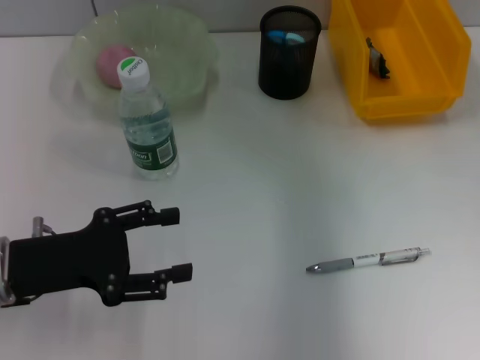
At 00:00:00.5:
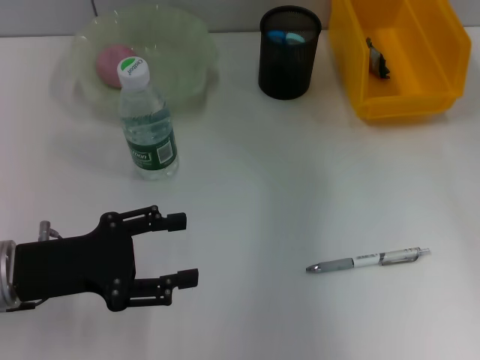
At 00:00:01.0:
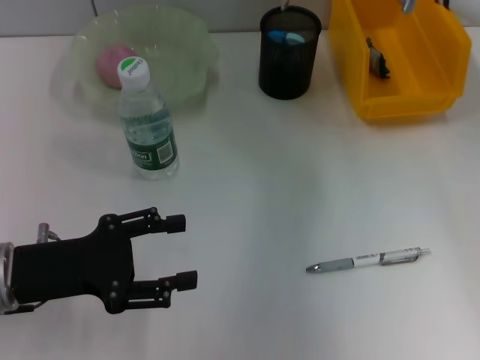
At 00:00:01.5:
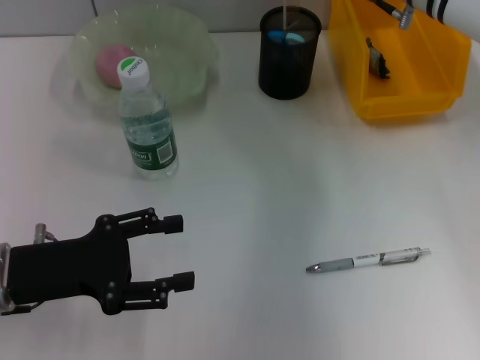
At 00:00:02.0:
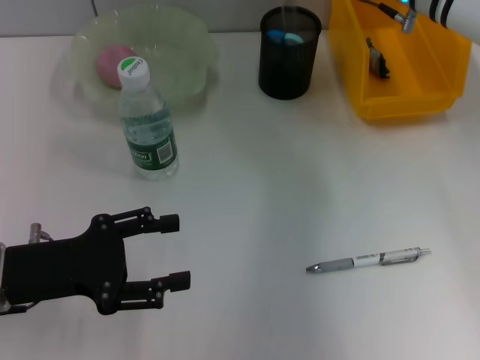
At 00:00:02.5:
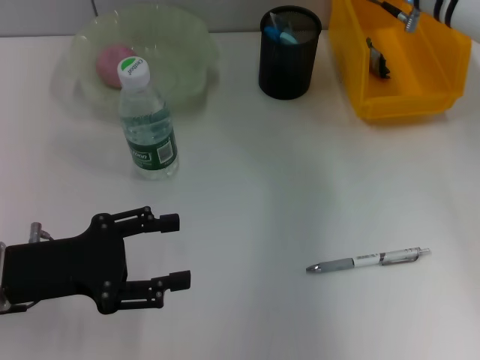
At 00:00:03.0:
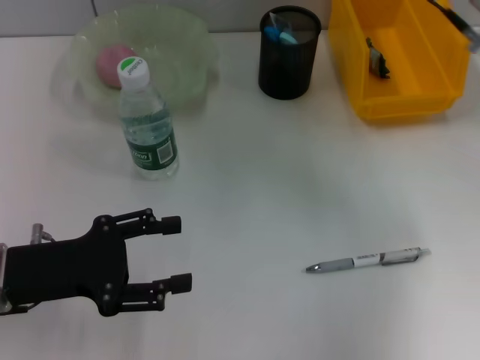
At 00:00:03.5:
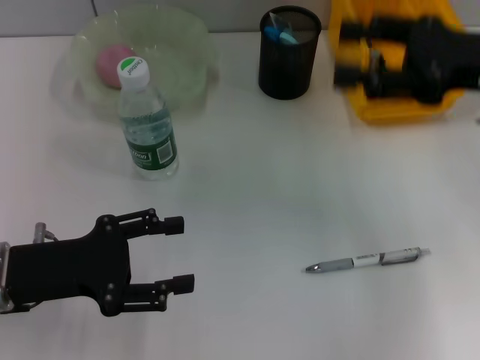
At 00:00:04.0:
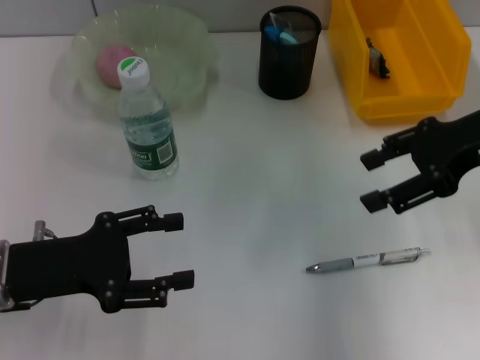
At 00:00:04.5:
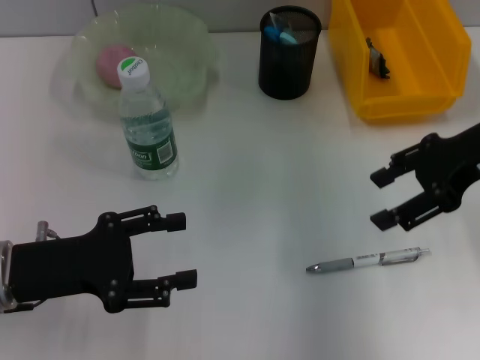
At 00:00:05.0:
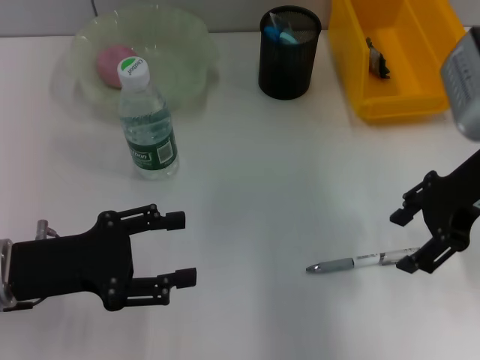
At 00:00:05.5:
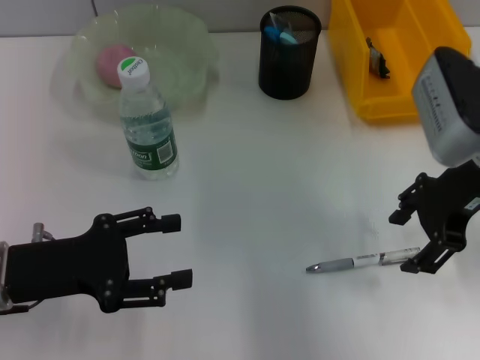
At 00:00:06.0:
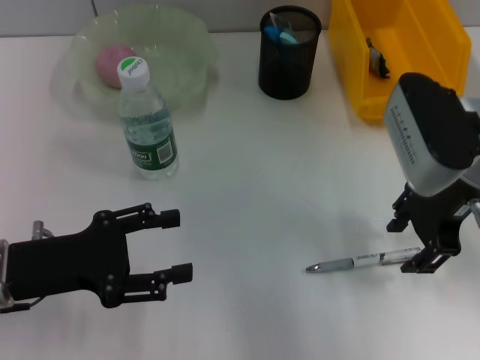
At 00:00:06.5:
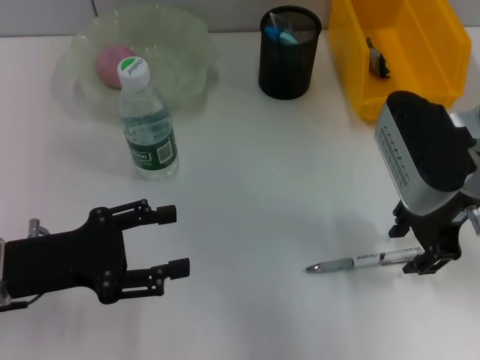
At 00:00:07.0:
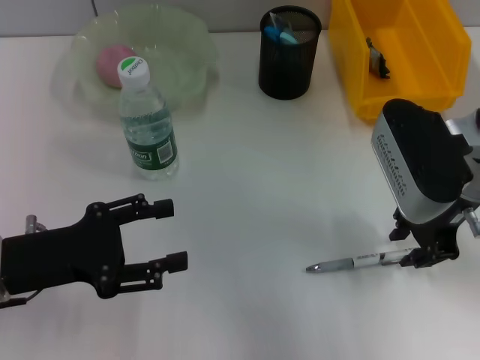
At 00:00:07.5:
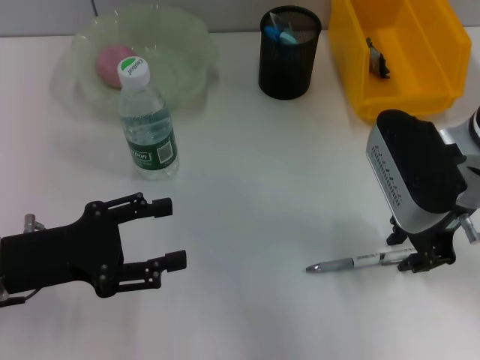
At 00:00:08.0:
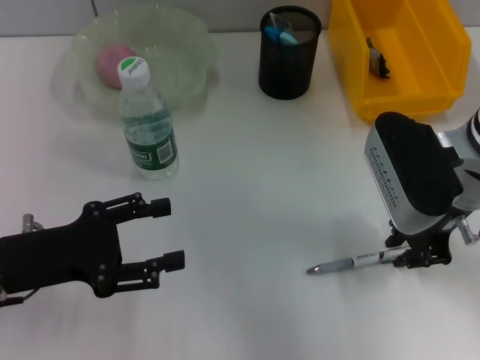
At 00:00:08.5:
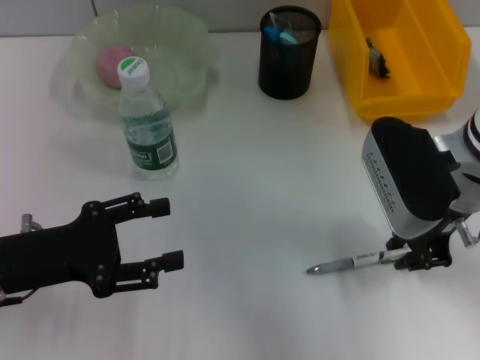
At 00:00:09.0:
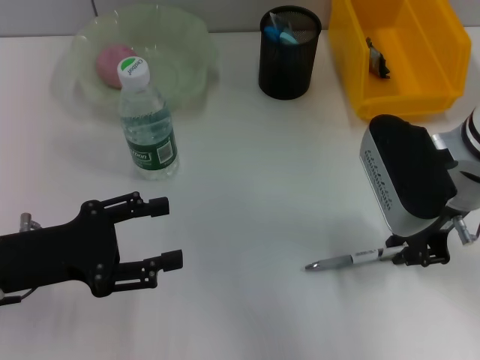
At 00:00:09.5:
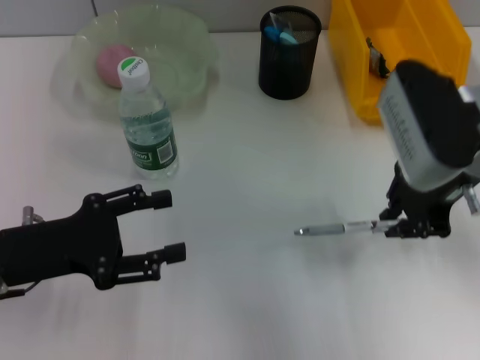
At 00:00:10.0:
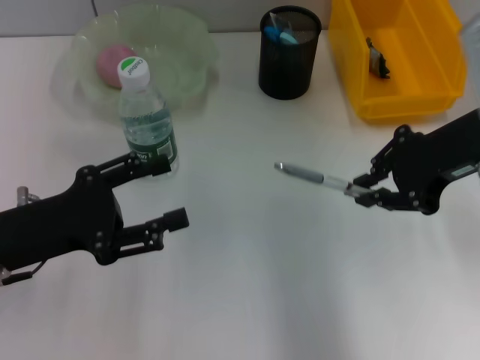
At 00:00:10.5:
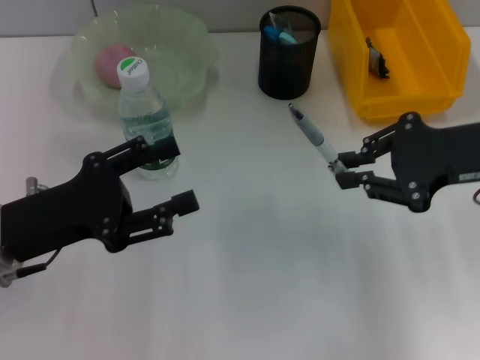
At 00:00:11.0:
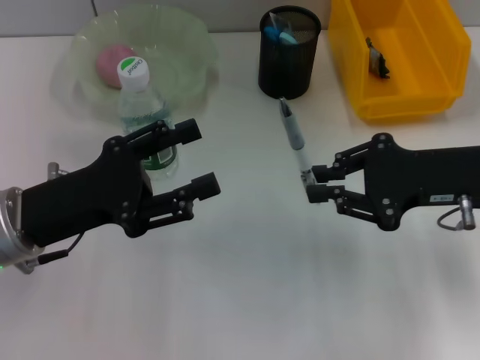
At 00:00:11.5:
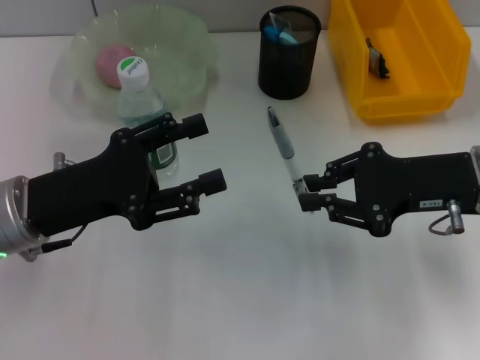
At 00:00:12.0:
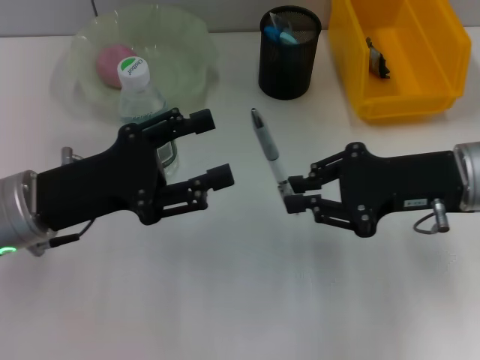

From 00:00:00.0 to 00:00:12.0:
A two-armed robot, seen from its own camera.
Step, from 00:00:00.0 to 00:00:02.0: Place the ruler into the pen holder with the right hand.
Step, from 00:00:02.5 to 00:00:08.5: Grab the gray spring-action pen with the right hand.
From 00:00:00.0 to 00:00:02.0: The right gripper moves downward, roughly 5 cm.
From 00:00:02.0 to 00:00:04.0: The right gripper goes about 15 cm backward and to the right.
From 00:00:04.0 to 00:00:06.0: The right gripper heads to the left, covering some 5 cm.
From 00:00:06.0 to 00:00:08.0: The right gripper closes.
From 00:00:08.0 to 00:00:10.0: The right gripper travels upward by roughly 5 cm.
From 00:00:10.0 to 00:00:12.0: The right gripper heads downward, covering roughly 5 cm.

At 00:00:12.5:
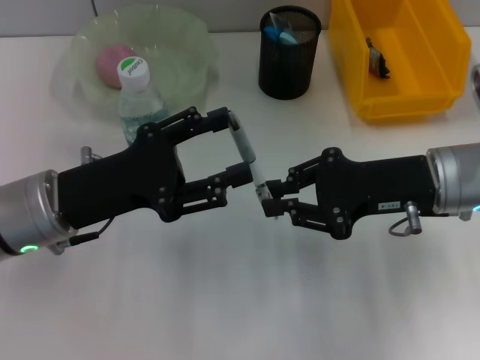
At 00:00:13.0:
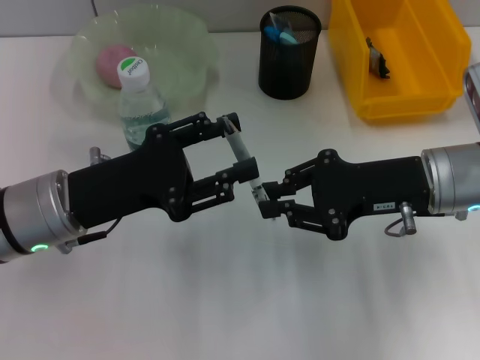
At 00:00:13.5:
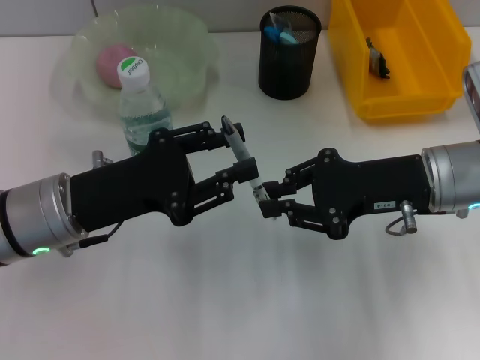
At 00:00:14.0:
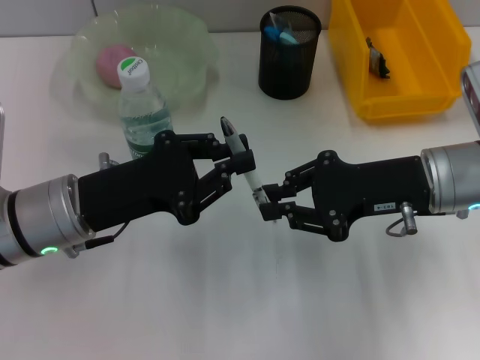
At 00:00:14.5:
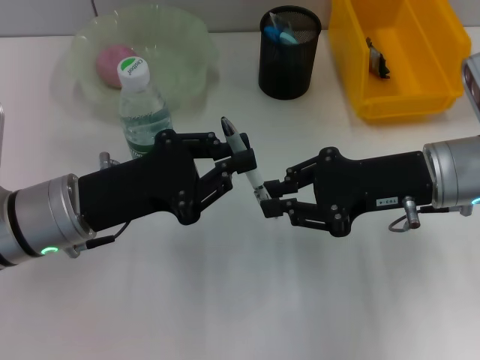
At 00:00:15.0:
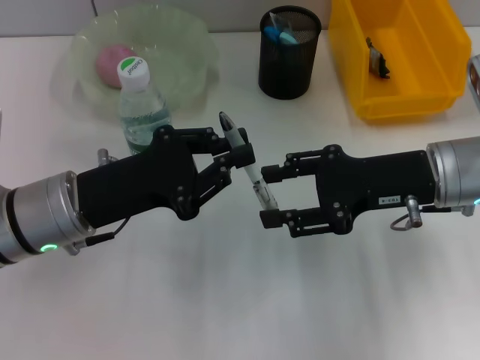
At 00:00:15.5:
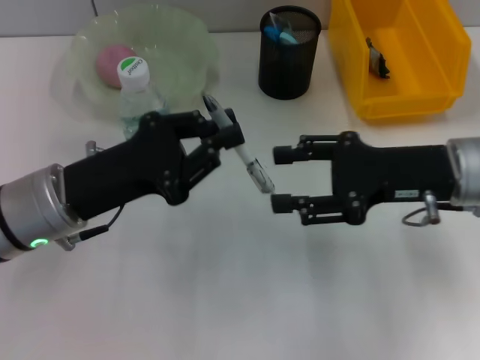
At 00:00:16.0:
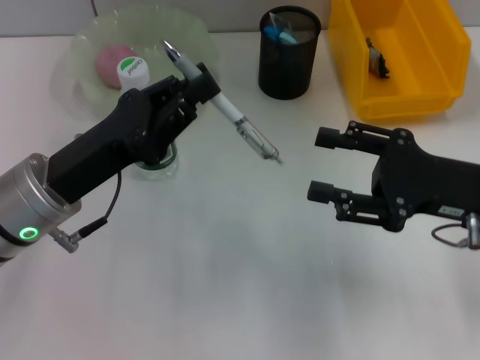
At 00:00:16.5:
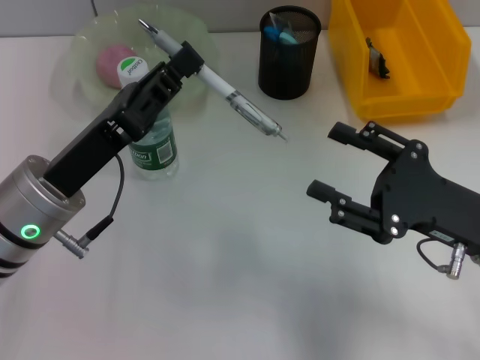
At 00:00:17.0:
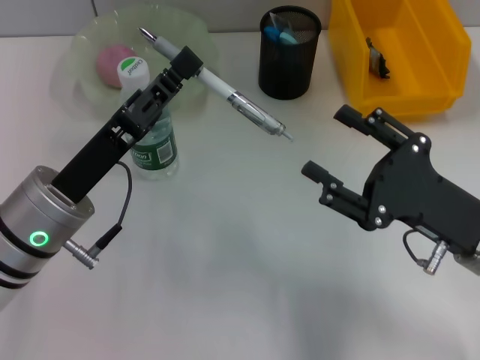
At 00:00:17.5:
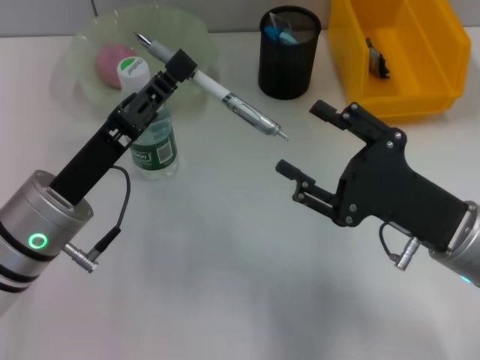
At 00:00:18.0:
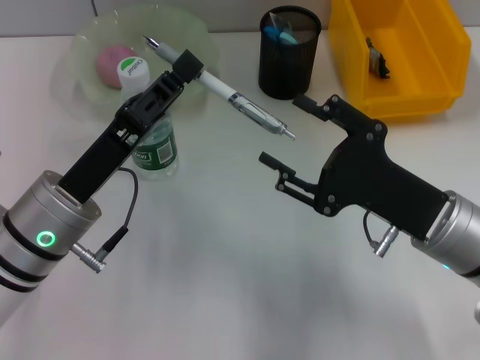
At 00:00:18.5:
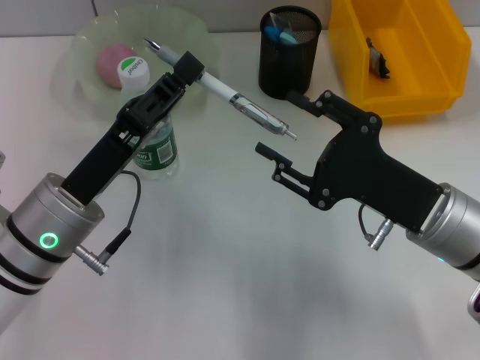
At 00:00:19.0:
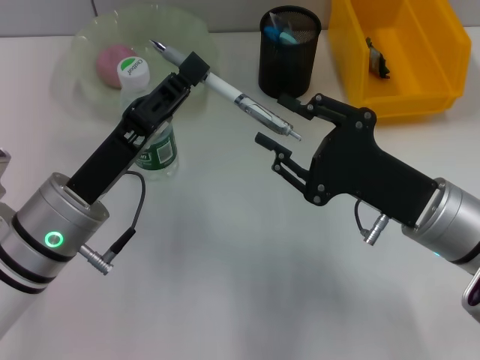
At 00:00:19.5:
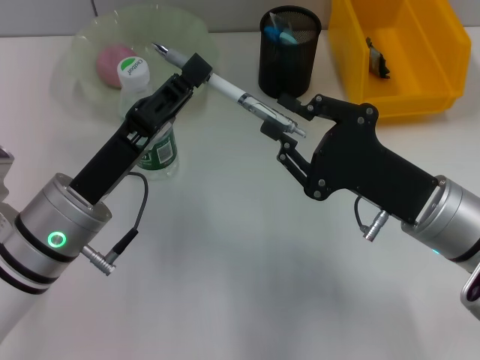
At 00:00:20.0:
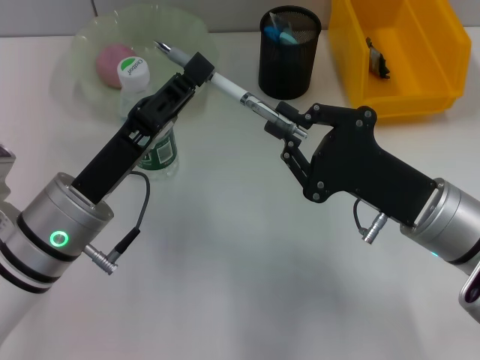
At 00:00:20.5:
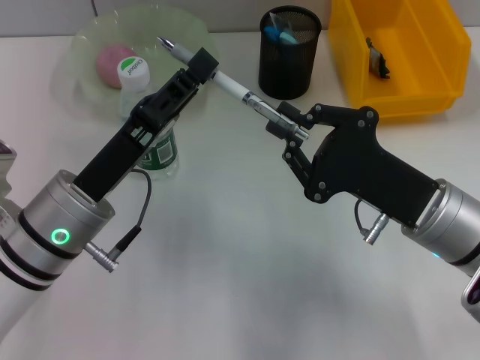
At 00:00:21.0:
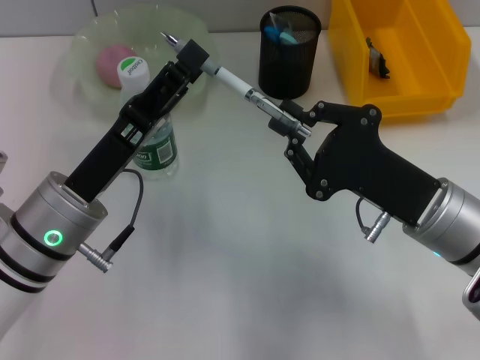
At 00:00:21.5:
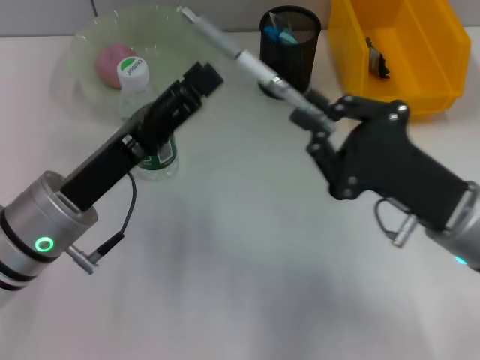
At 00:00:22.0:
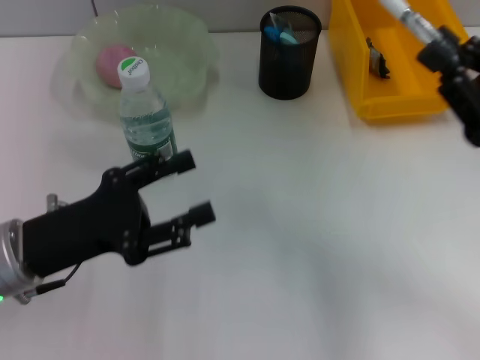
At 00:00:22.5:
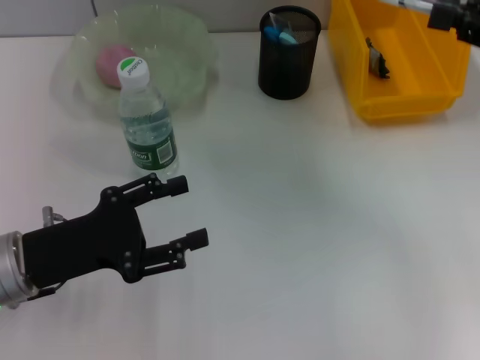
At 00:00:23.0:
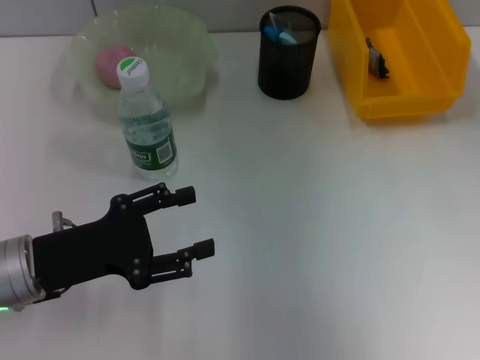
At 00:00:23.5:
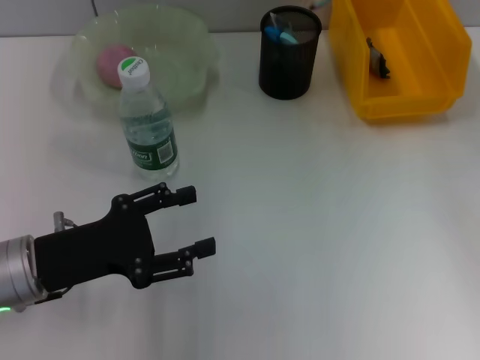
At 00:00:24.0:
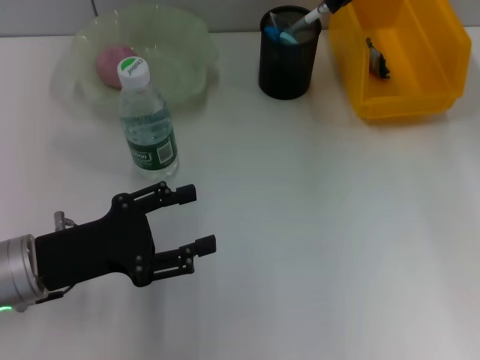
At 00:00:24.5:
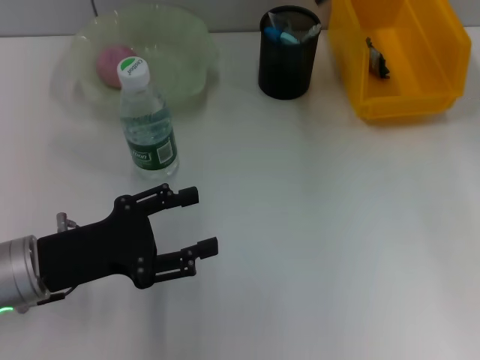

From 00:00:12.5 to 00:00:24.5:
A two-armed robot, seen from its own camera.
Step, from 00:00:12.5 to 00:00:14.5: Pass the gray spring-action pen from the right hand to the left hand.
Step, from 00:00:15.0 to 00:00:20.5: Pass the gray spring-action pen from the left hand to the right hand.
Step, from 00:00:21.0 to 00:00:24.0: Place the gray spring-action pen into the pen holder with the right hand.
From 00:00:12.5 to 00:00:14.5: The left gripper closes.
From 00:00:14.5 to 00:00:16.5: The right gripper moves backward, roughly 10 cm, and opens up.
From 00:00:16.5 to 00:00:18.5: The right gripper travels to the left by approximately 5 cm.
From 00:00:18.5 to 00:00:20.5: The right gripper closes up.
From 00:00:20.5 to 00:00:22.5: The left gripper heads to the left, covering roughly 5 cm, and opens; the right gripper is displaced upward, to the right and forward by approximately 20 cm.
From 00:00:22.5 to 00:00:24.5: The right gripper heads to the left and forward, covering some 25 cm.

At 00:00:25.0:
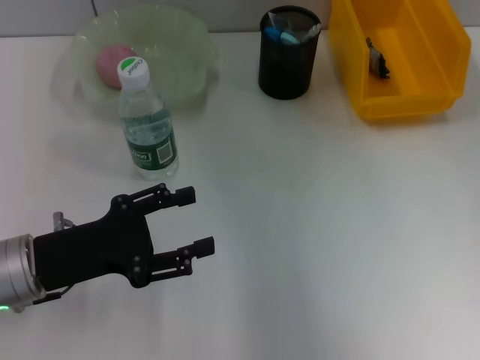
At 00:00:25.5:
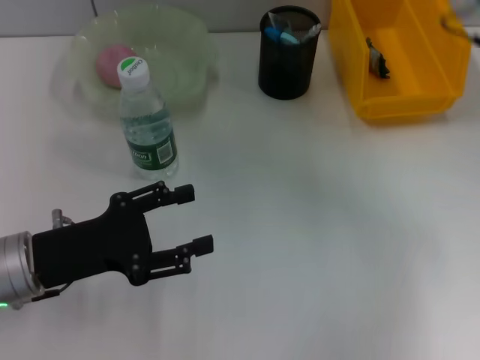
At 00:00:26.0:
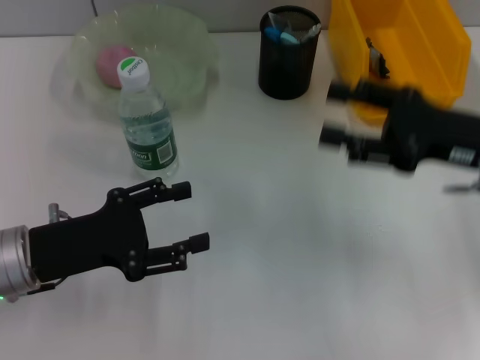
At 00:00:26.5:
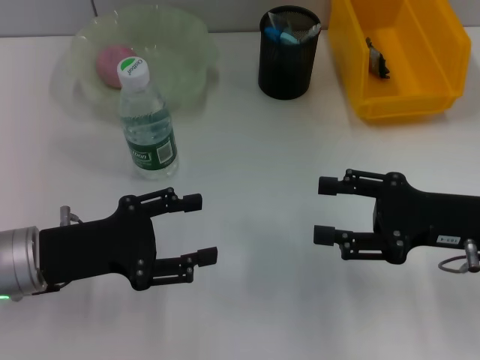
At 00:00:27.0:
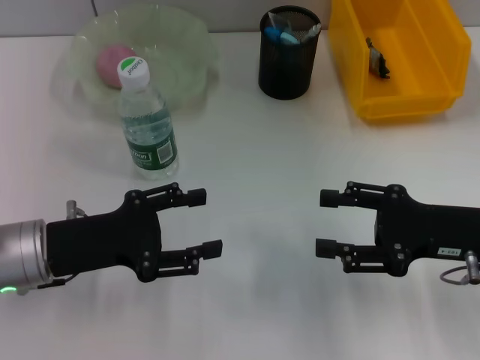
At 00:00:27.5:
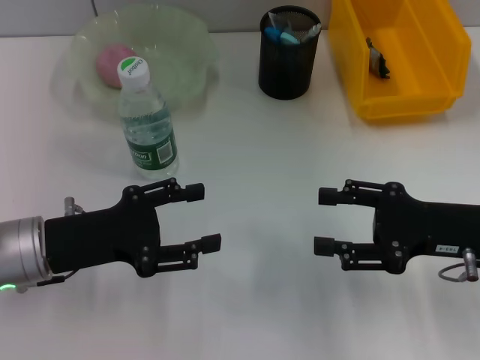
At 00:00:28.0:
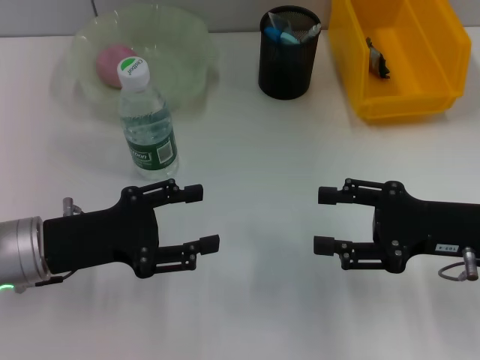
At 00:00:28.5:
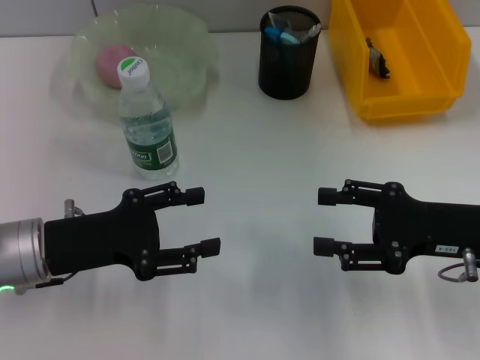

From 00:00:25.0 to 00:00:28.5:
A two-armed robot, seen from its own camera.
From 00:00:25.0 to 00:00:27.0: The right gripper heads downward and backward, covering some 25 cm.
From 00:00:27.0 to 00:00:28.5: Both grippers stay about where they are.
